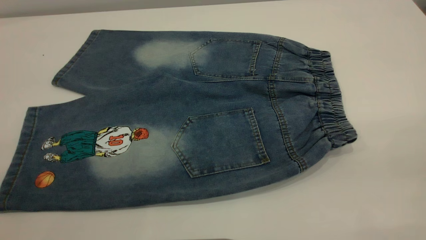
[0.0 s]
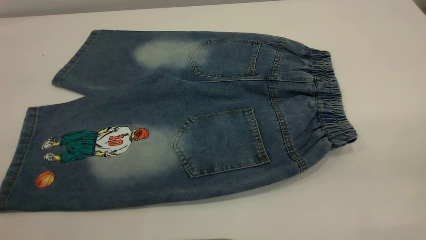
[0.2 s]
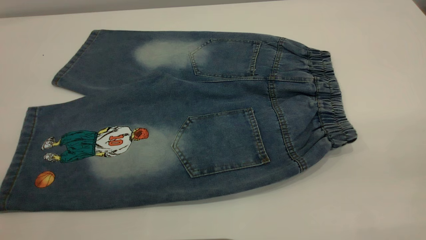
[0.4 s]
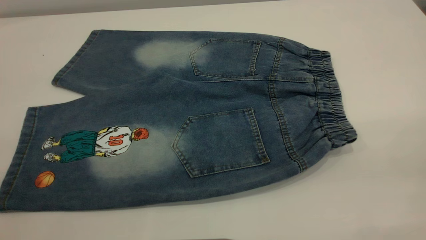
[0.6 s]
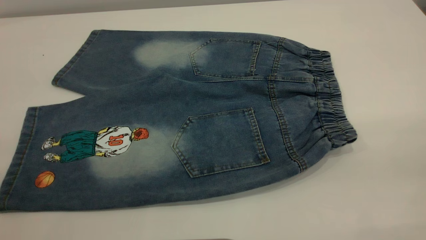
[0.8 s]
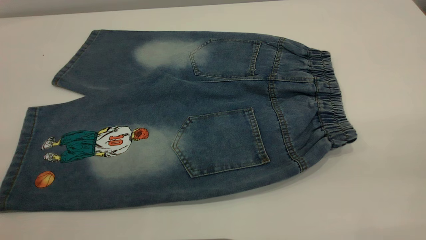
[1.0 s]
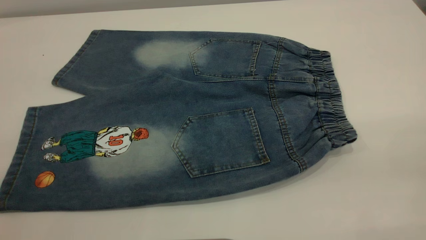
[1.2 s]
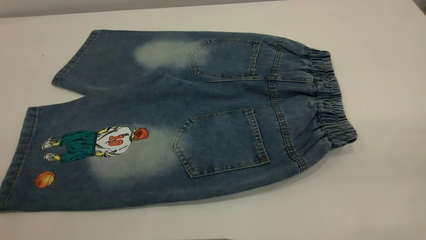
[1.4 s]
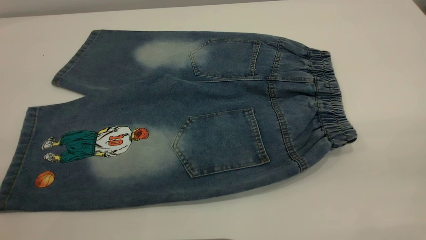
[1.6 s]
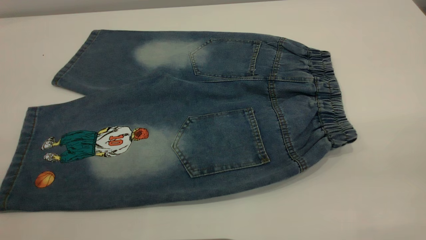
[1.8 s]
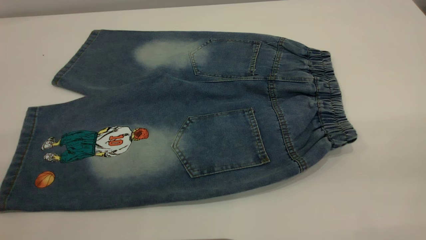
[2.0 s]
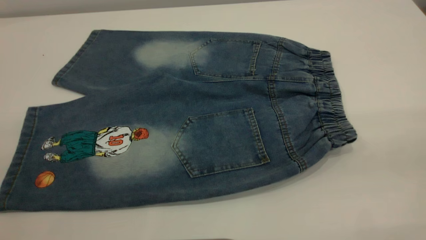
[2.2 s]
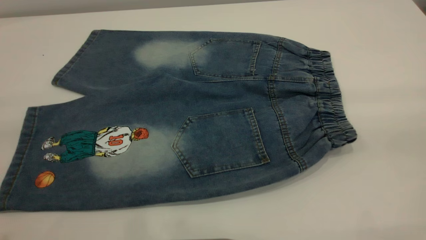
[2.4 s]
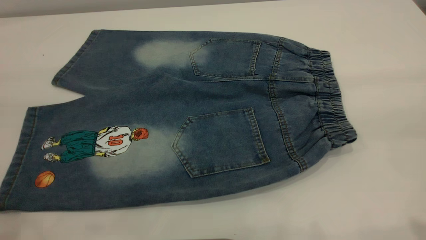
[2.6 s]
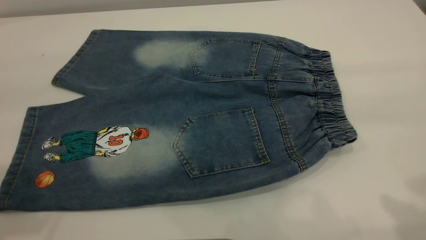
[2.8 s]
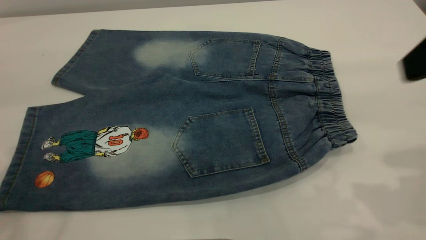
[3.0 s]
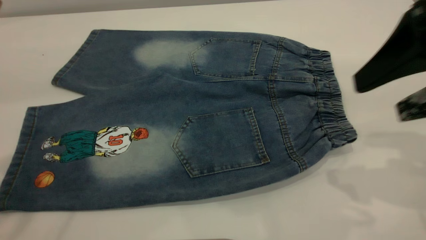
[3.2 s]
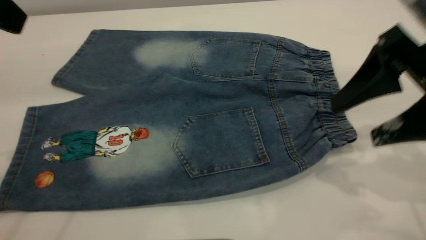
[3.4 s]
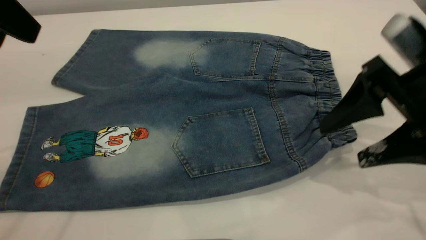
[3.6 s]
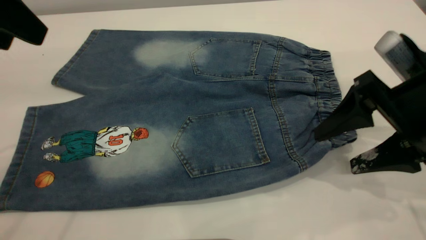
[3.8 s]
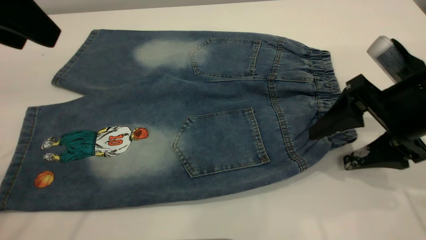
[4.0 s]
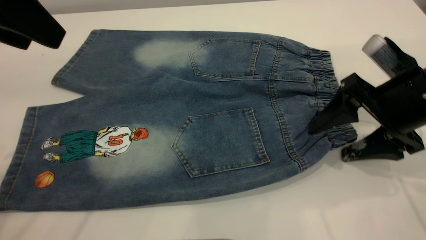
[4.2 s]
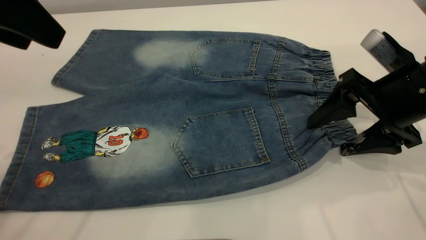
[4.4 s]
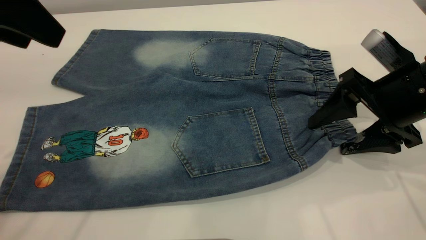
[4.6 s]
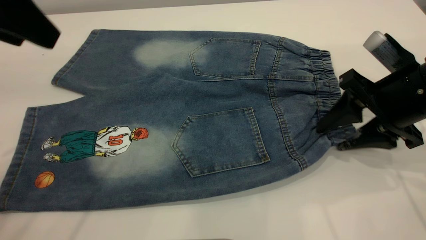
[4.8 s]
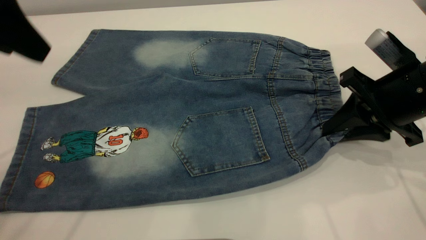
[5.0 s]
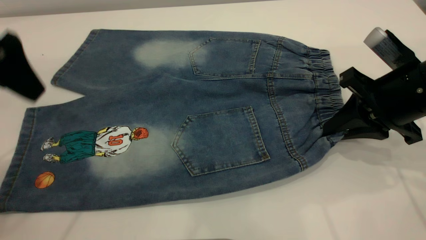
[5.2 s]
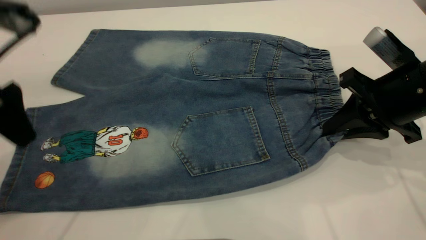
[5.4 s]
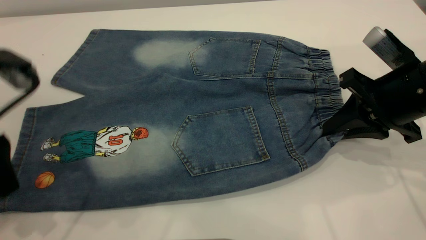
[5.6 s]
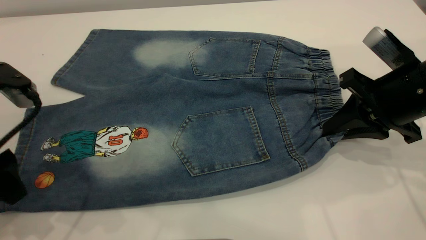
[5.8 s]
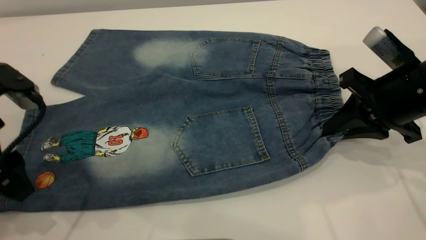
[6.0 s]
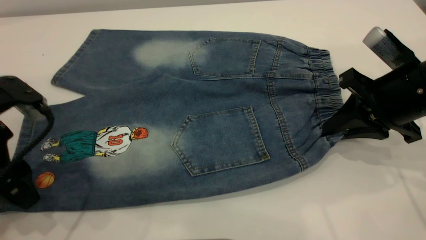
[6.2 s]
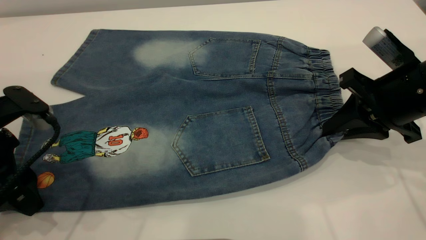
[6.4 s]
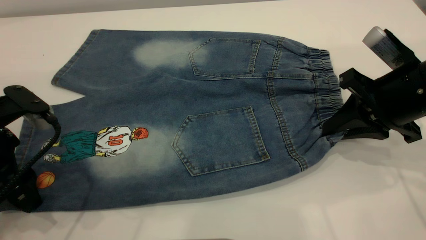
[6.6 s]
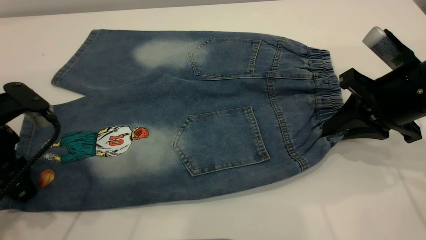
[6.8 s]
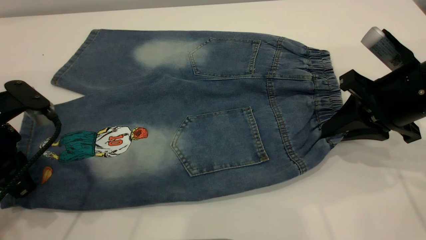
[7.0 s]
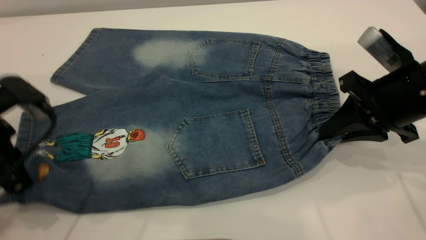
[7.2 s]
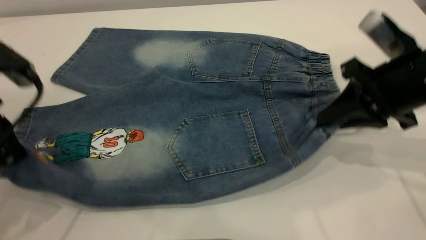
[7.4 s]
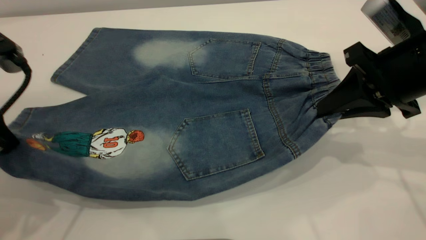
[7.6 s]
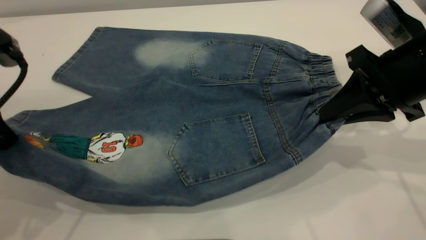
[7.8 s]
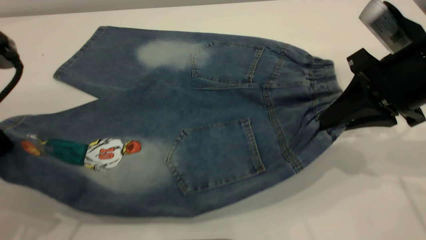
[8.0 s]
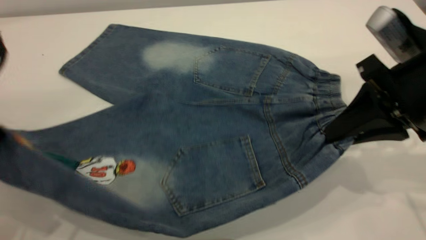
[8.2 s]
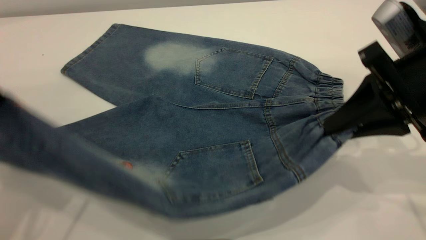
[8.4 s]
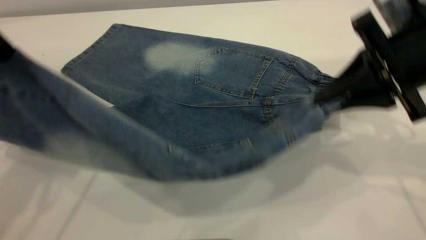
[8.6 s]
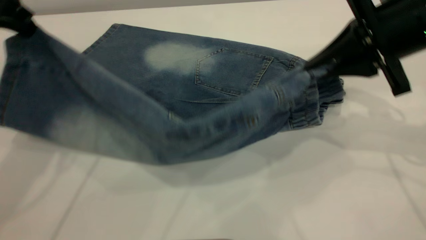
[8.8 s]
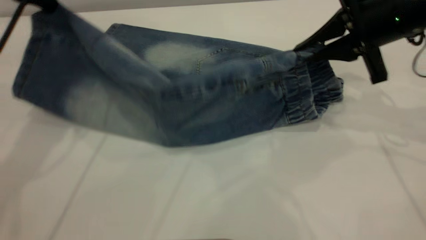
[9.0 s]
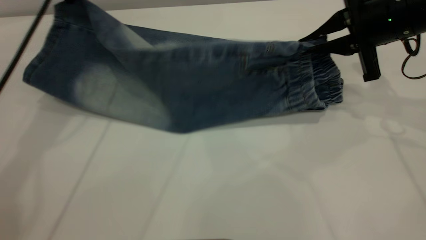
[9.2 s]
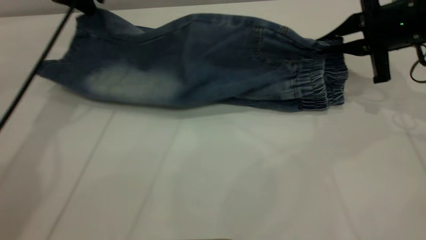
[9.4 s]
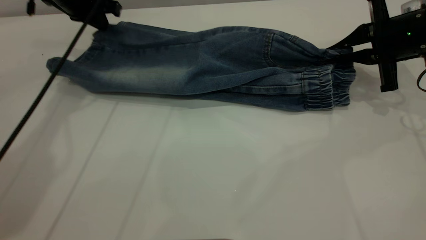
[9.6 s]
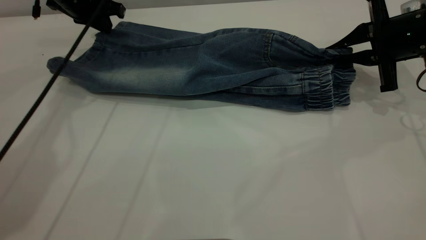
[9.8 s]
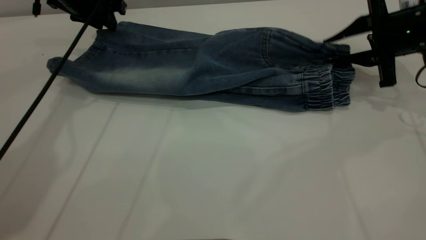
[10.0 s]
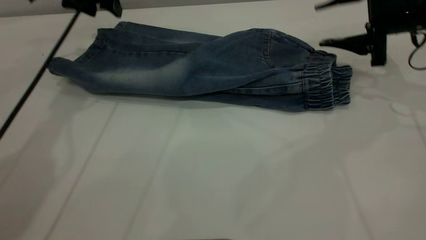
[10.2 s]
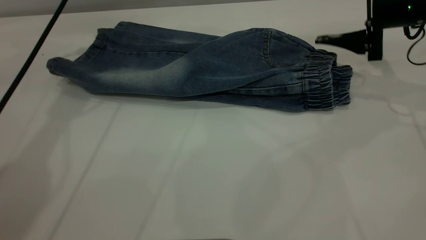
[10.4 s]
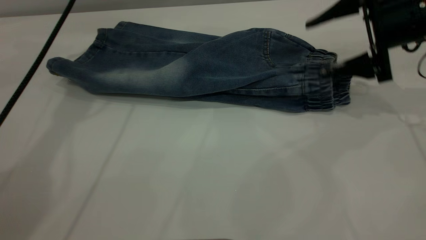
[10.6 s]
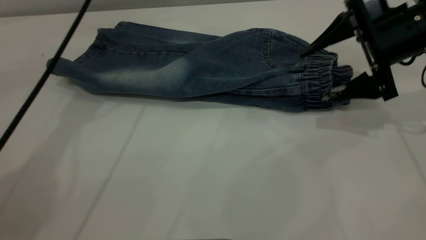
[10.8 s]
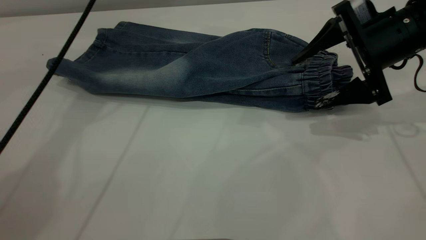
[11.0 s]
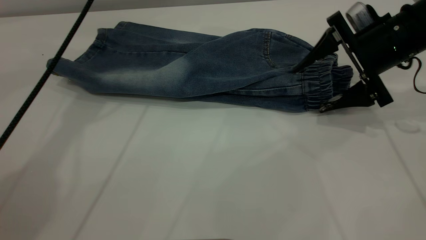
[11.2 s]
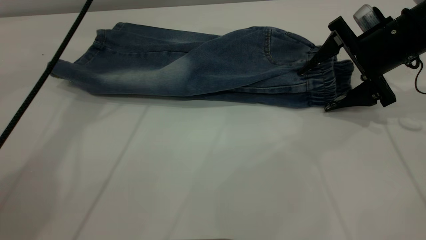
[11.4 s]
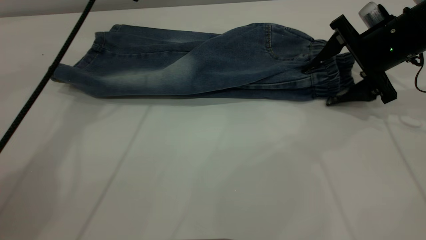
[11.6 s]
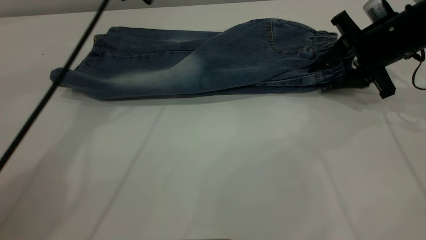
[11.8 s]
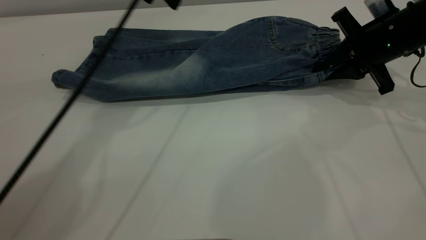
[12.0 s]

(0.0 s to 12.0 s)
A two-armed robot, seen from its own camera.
Step, 0.0 s - 10.2 s: Fold the bottom of the pants upward.
0.0 s - 1.6 s: Both grippers stay put.
1.6 s - 3.0 s: The right gripper goes roughly 20 cm forward.
3.0 s - 4.4 s: The right gripper travels downward and forward by roughly 15 cm. Meanwhile the left gripper moves downward, approximately 5 cm.
4.4 s - 6.0 s: The left gripper moves downward, about 15 cm. The right gripper closes up.
6.0 s - 7.6 s: The left gripper closes its fingers.
7.6 s - 9.0 s: The right gripper heads forward, covering approximately 5 cm, while the left gripper moves forward and upward, roughly 20 cm.
9.0 s - 10.4 s: The right gripper shifts by some 5 cm, and opens. The left gripper shifts about 10 cm forward, and opens up.
10.4 s - 12.0 s: The left gripper shifts about 10 cm to the right; the right gripper closes up.

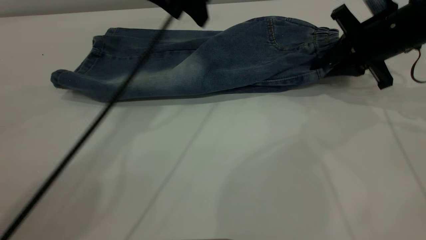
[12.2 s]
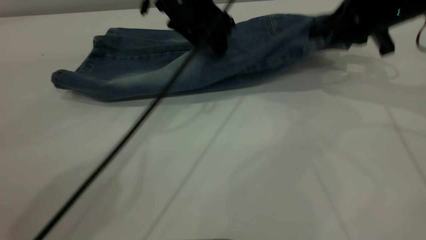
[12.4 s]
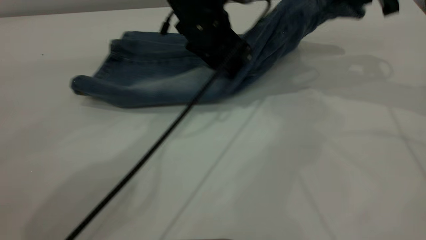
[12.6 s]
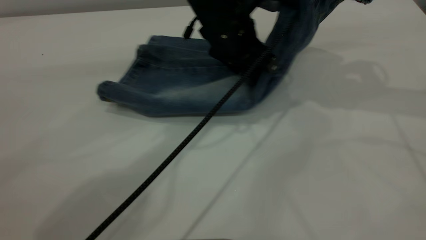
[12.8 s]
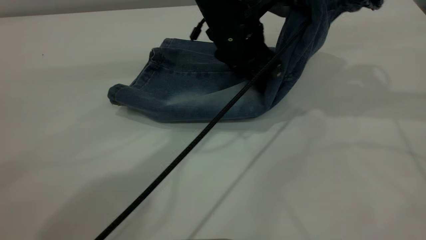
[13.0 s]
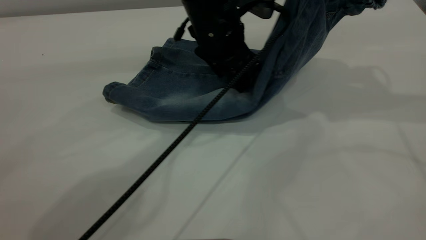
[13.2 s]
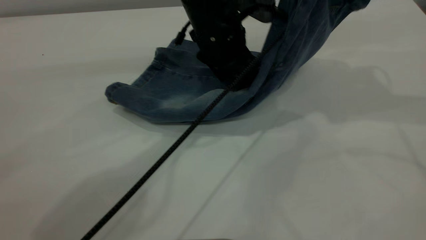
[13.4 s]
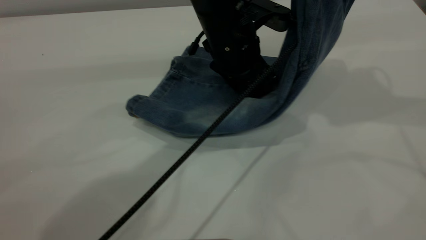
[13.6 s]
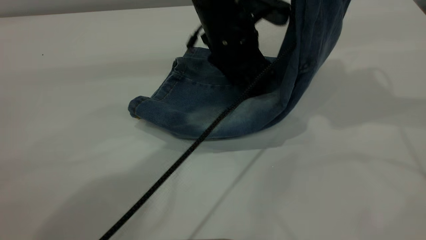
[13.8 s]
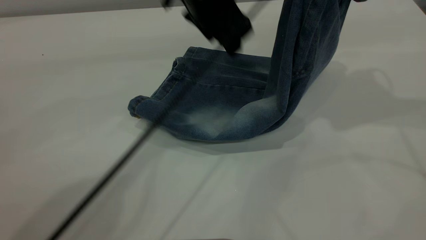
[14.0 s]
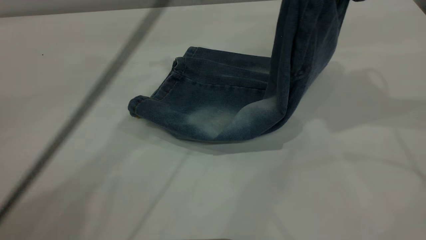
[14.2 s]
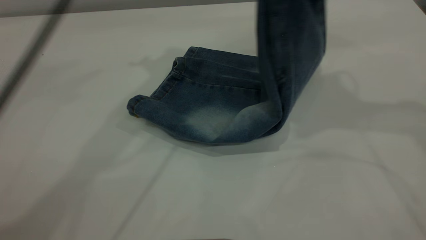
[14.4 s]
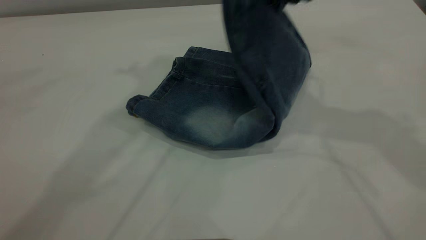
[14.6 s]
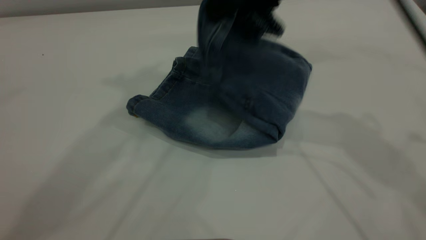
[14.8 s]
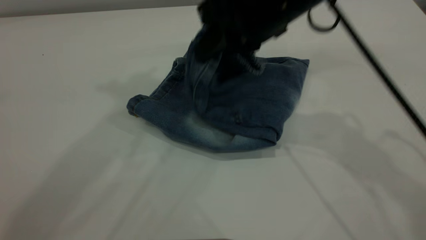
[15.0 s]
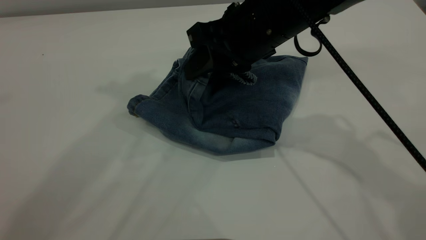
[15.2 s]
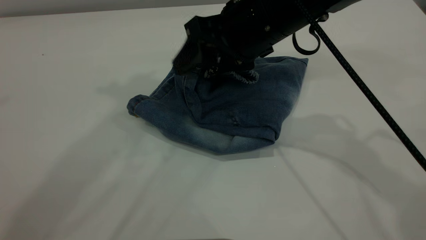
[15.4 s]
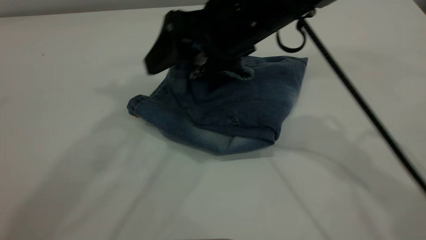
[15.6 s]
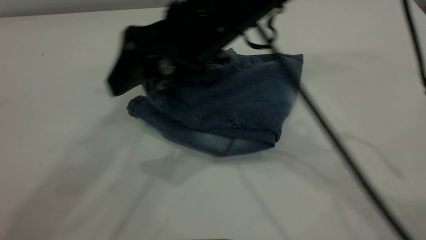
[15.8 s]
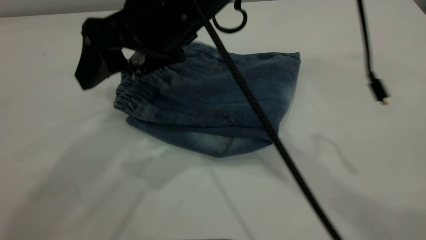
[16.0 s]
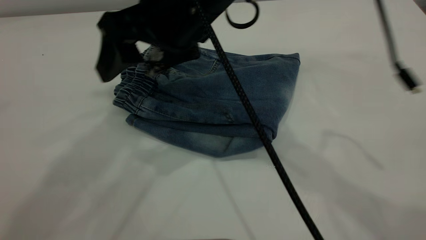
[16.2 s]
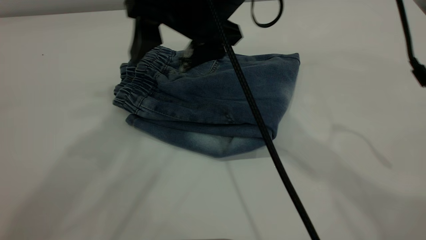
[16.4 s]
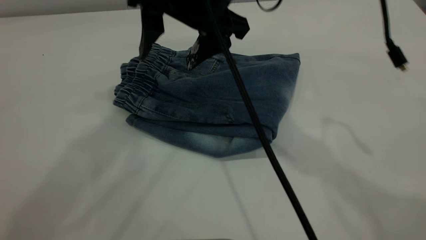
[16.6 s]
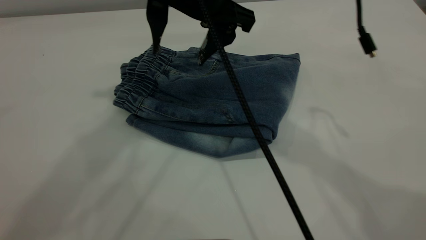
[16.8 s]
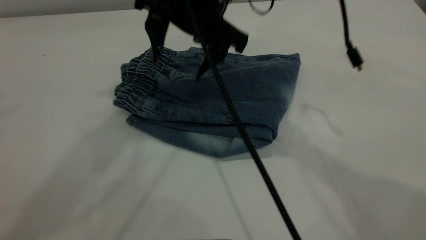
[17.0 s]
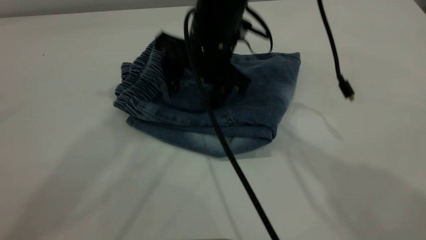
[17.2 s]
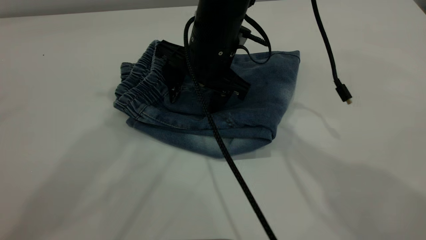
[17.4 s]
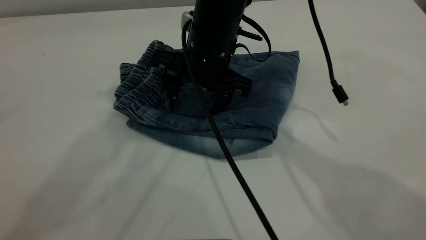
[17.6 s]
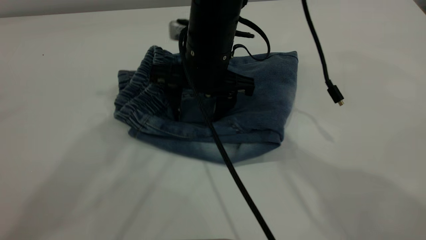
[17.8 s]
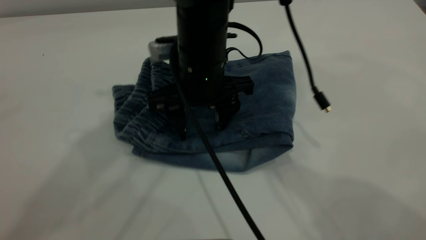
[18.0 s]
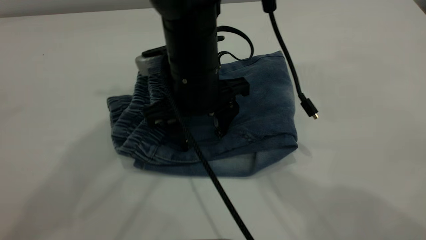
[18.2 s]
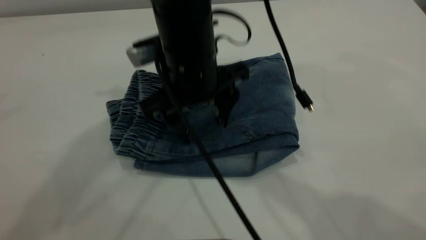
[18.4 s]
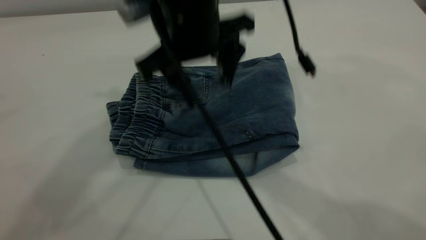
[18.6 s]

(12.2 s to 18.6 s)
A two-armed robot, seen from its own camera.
Step, 12.2 s - 16.2 s: Fold your pants from right to left.
12.2 s - 13.8 s: The right gripper moves upward, about 20 cm. The left gripper travels to the right and backward by approximately 10 cm.
13.8 s - 15.4 s: The right gripper is displaced to the left and downward by some 20 cm, and opens up. Meanwhile the left gripper shifts roughly 35 cm upward and to the left.
15.4 s - 17.0 s: The right gripper shifts about 5 cm to the left.
17.0 s - 18.6 s: The right gripper is displaced backward by roughly 5 cm.
